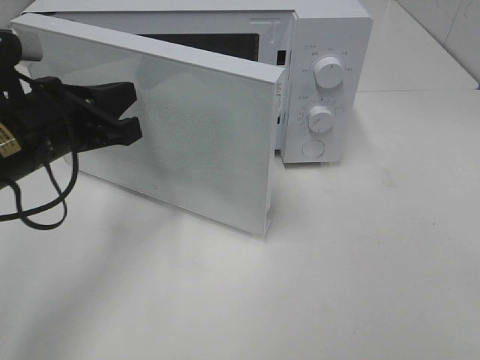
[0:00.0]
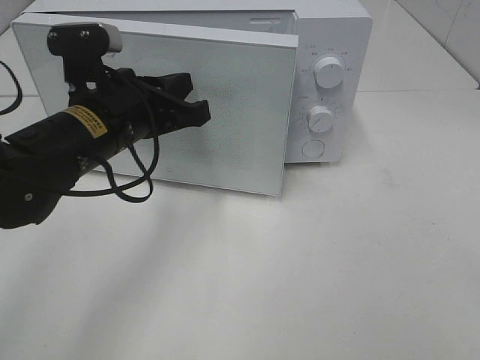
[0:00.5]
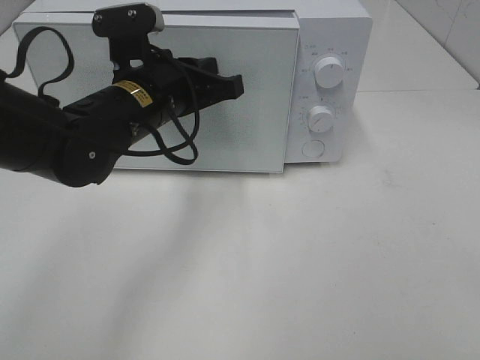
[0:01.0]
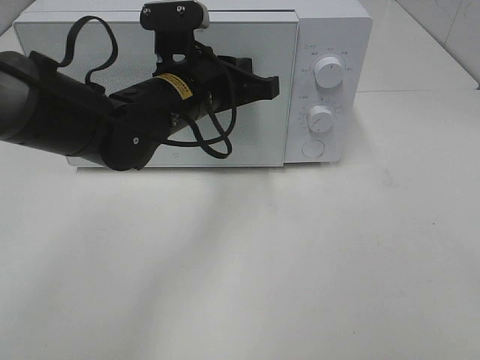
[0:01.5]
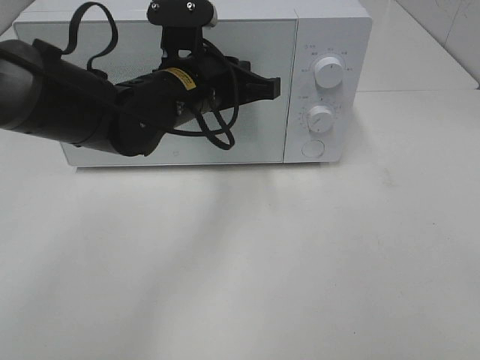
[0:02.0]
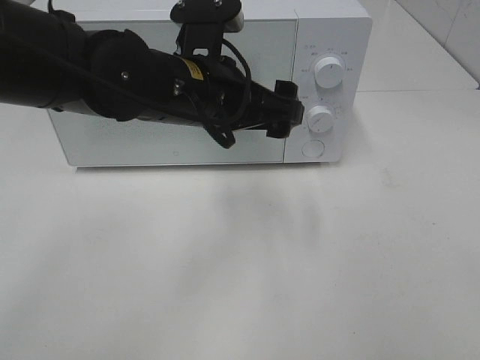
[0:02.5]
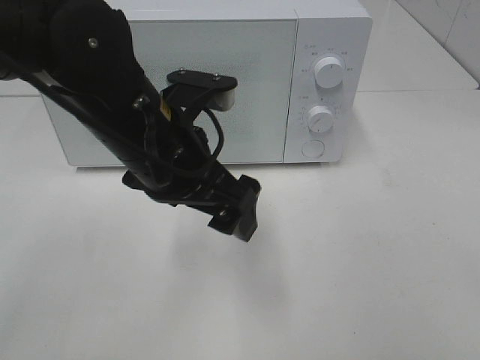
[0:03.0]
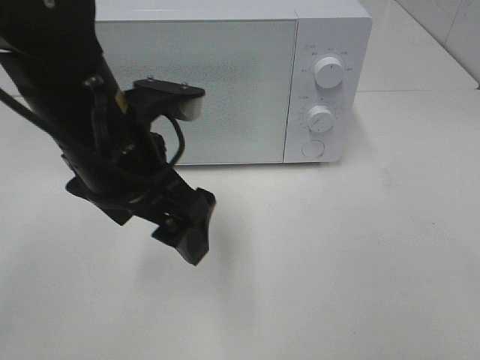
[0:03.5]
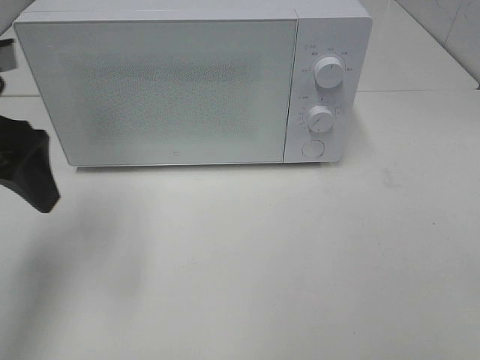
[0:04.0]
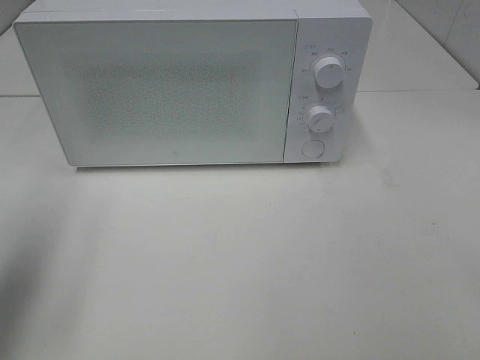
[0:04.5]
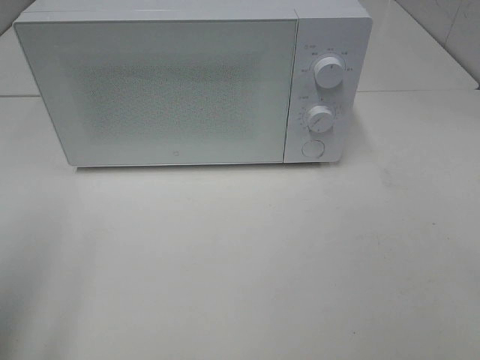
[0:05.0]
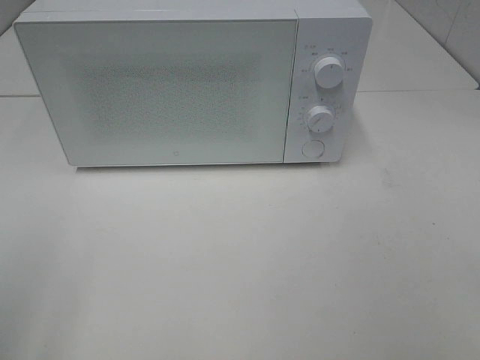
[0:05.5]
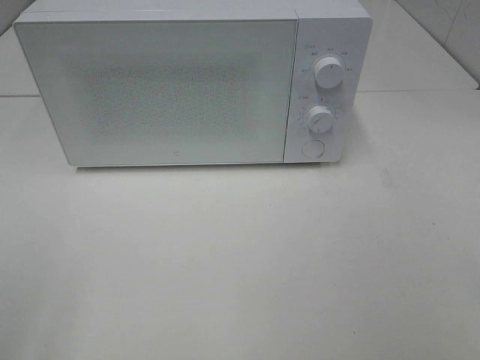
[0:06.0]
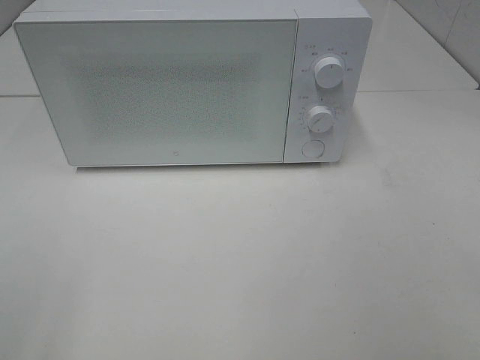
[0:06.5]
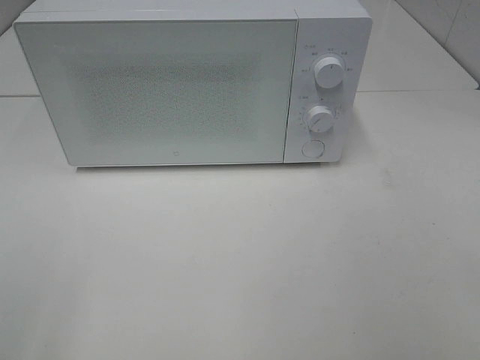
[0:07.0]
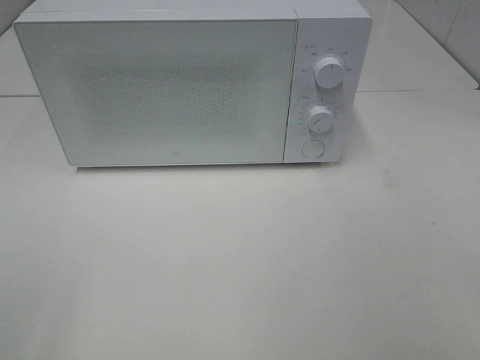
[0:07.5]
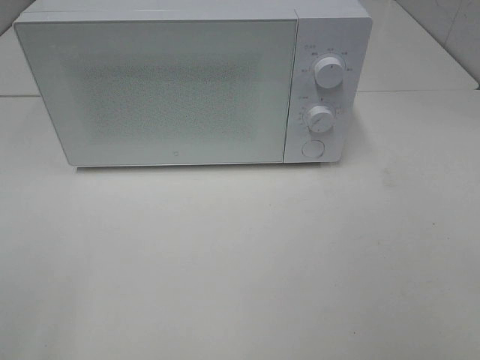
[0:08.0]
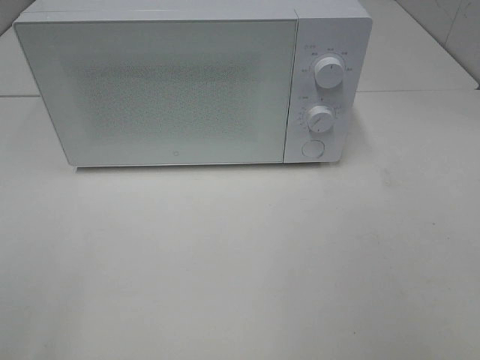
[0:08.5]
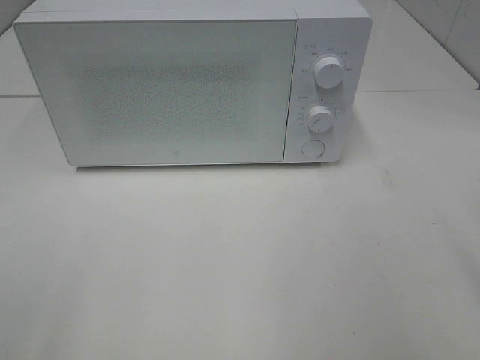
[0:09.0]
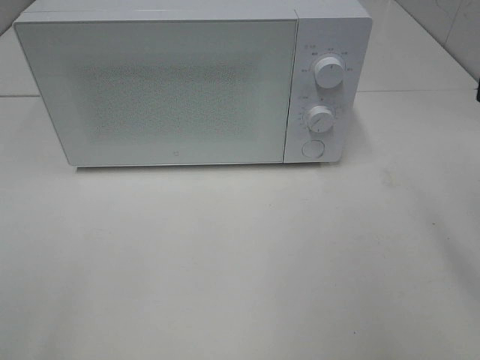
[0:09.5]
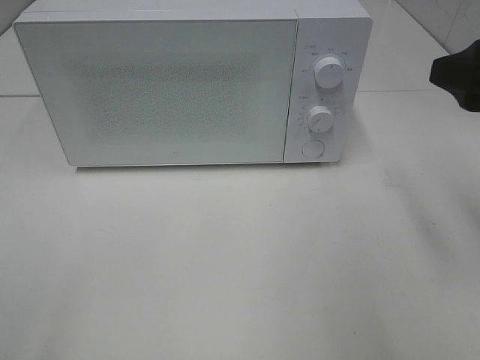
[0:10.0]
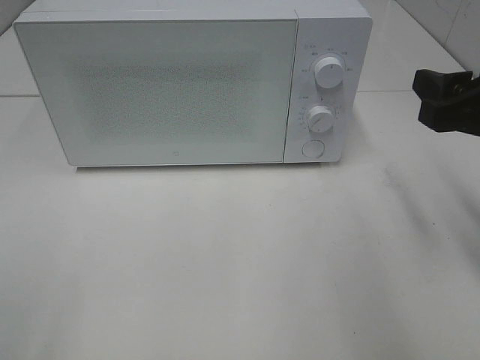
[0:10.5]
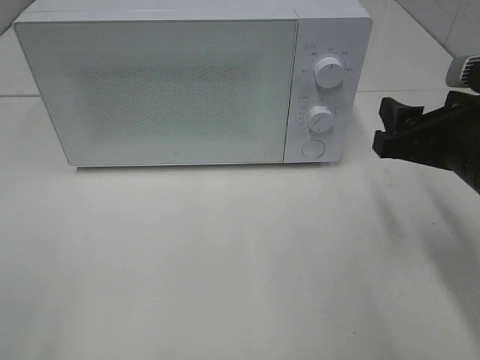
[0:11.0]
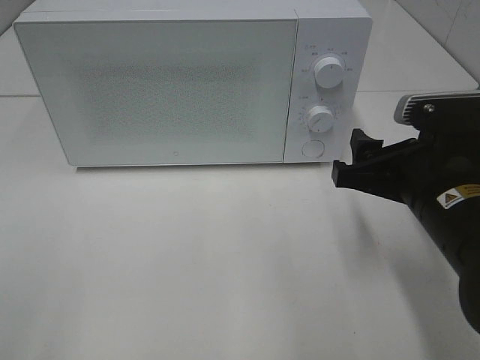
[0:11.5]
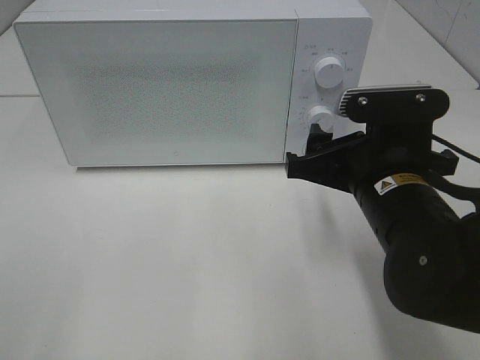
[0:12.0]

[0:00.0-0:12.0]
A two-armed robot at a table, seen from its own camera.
Task of the whole recording: Heat the burger.
Step, 0:00.0 to 0:02.0: Left hand: close the microwave door.
0:00.0 to 0:02.0: The left gripper heads to the right and forward, covering approximately 15 cm.
0:02.0 to 0:04.0: The left gripper travels to the left and backward by some 20 cm, and opens its fingers.
0:04.0 to 0:06.0: The left gripper goes some 25 cm backward.
0:08.0 to 0:10.0: The right gripper travels forward by about 20 cm.
0:10.0 to 0:12.0: The right gripper moves downward and to the left, roughly 15 cm.

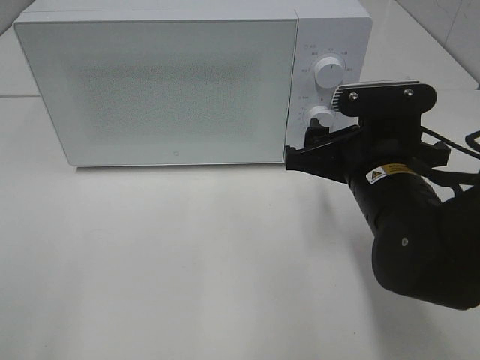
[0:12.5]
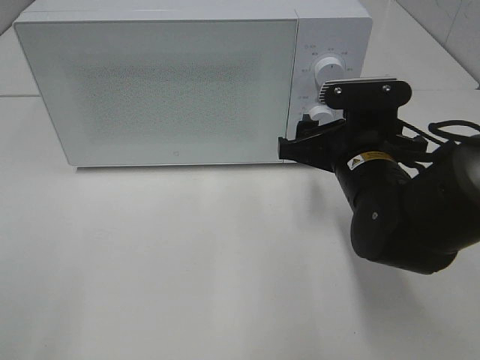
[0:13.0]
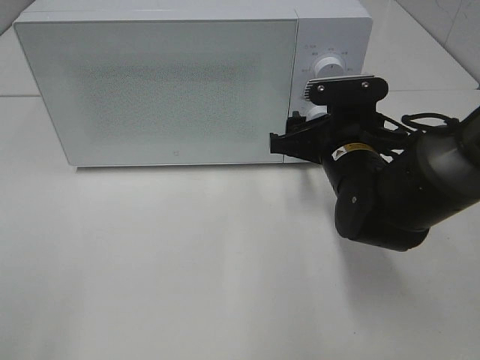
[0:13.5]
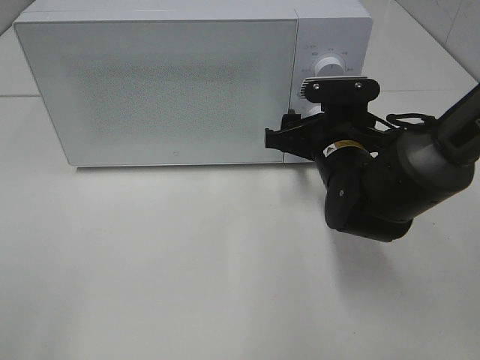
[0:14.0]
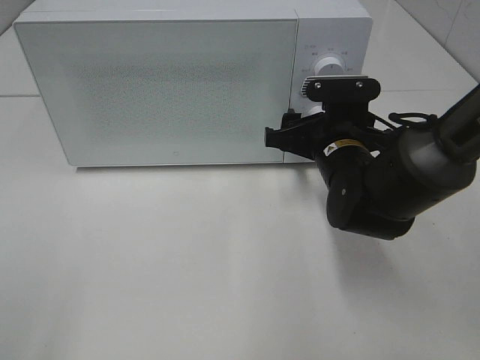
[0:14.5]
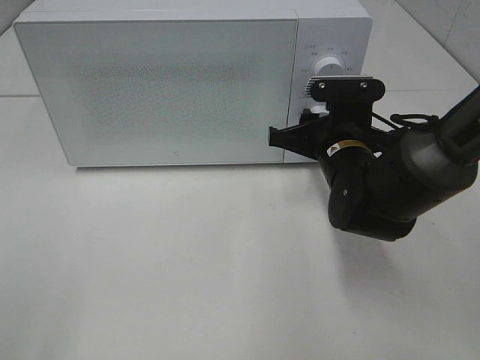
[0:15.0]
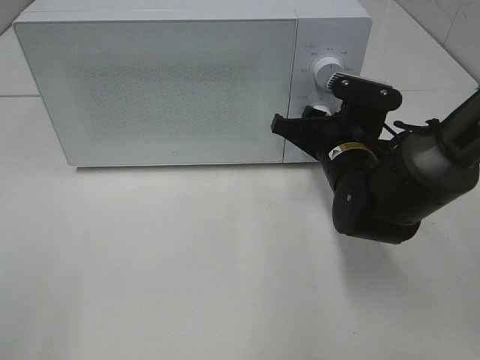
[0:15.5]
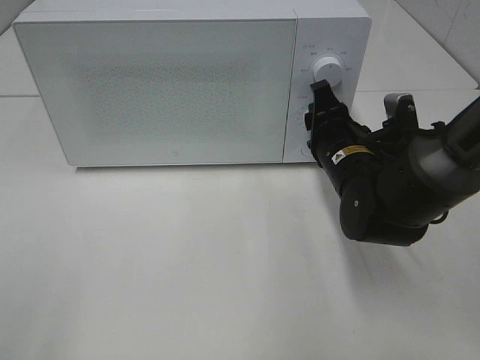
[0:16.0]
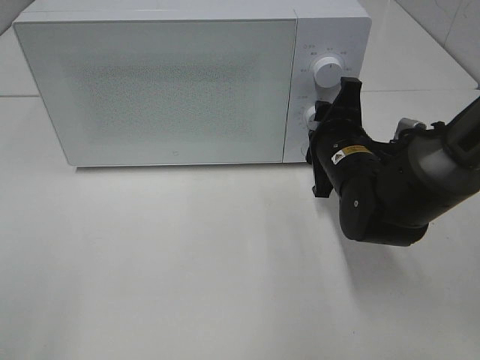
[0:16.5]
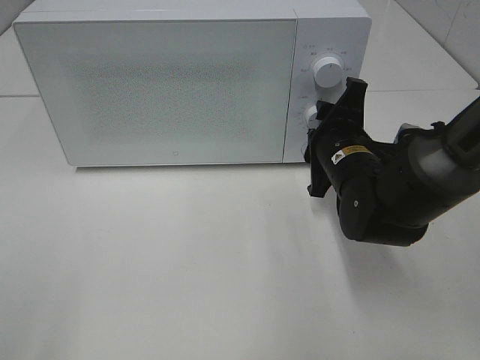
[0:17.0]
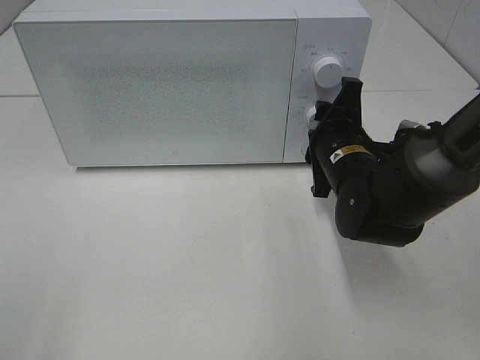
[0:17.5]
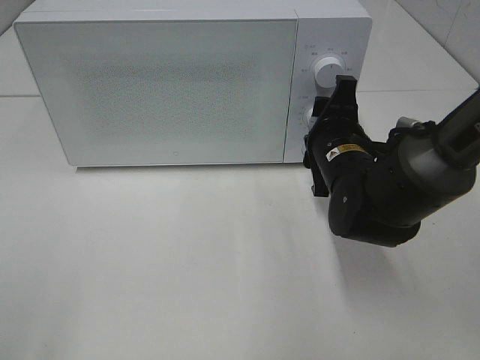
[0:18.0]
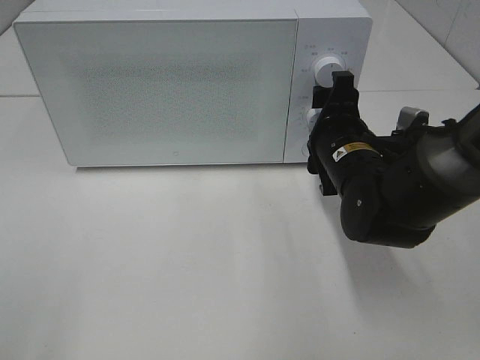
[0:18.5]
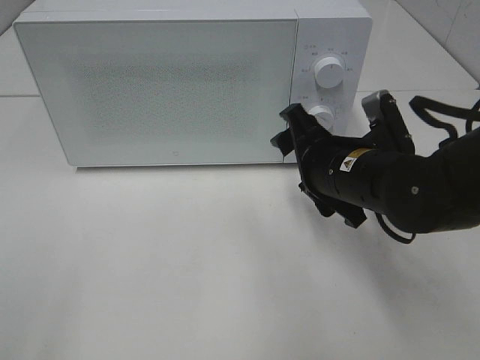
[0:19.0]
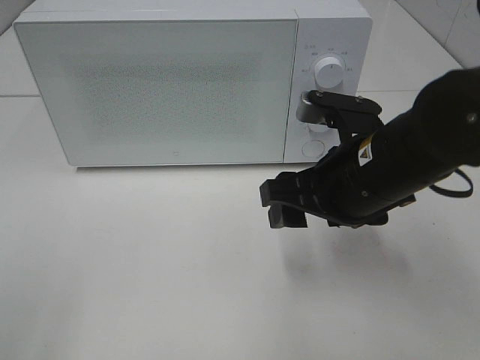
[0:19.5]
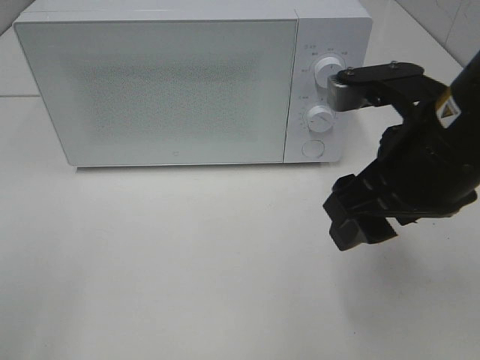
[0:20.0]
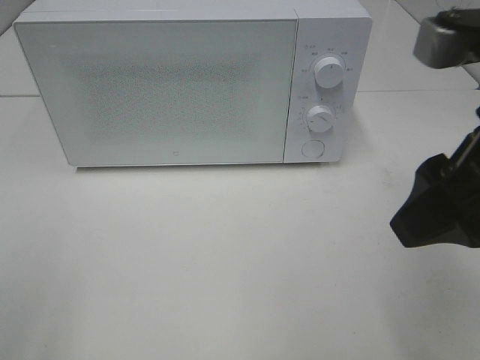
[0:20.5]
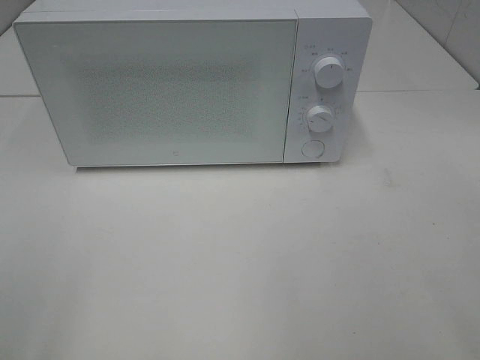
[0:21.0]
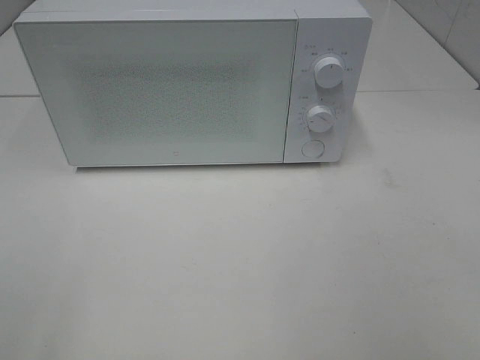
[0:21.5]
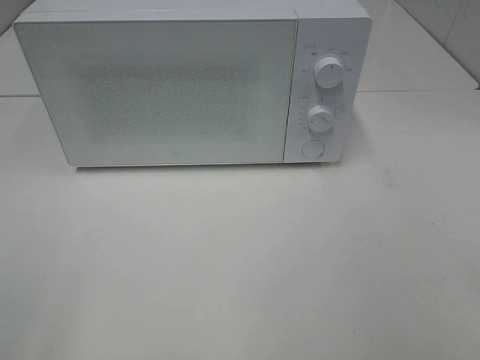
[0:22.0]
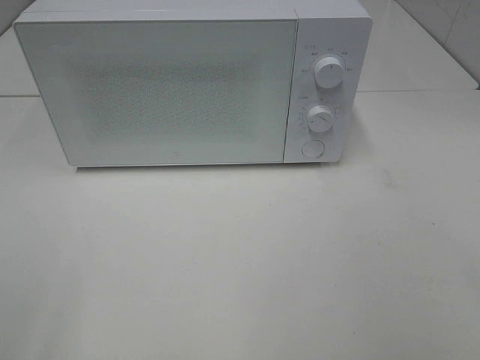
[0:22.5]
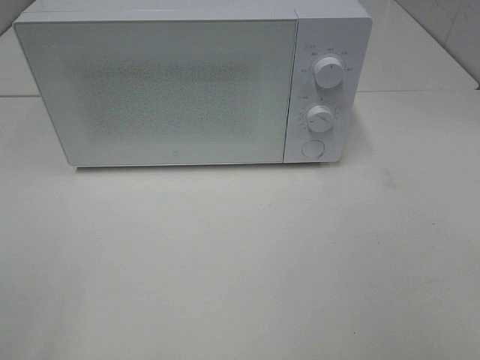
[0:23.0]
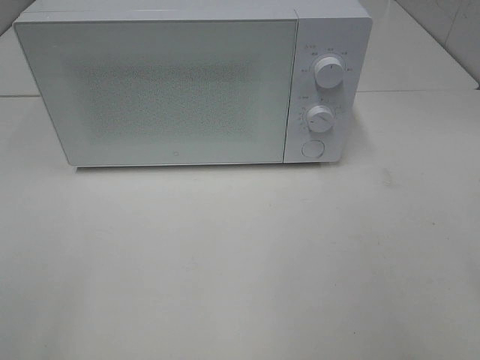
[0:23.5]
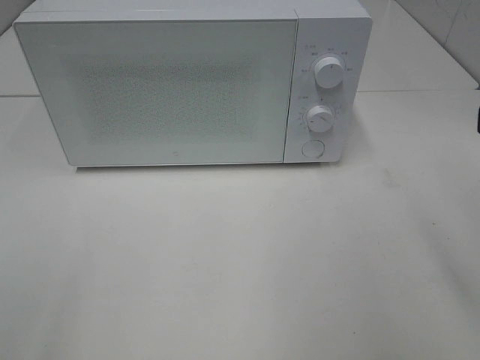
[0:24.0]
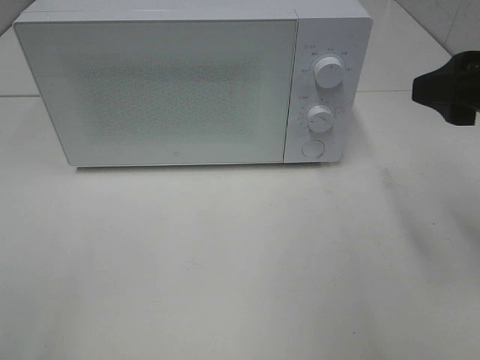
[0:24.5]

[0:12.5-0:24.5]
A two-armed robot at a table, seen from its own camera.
Task of the whole recording: Heat the burger.
Step, 0:12.5 to 0:18.0: Right hand: twist timer button.
0:12.5 to 0:14.5: The right gripper goes about 10 cm forward.
0:16.5 to 0:18.5: The grippers stay close to where they were, moving slightly.
0:18.5 to 0:20.5: The right gripper heads upward and backward, covering about 25 cm.
0:20.5 to 0:22.5: The right gripper moves backward and to the right, approximately 20 cm.
0:22.5 to 0:24.5: The right gripper is displaced forward by approximately 20 cm.

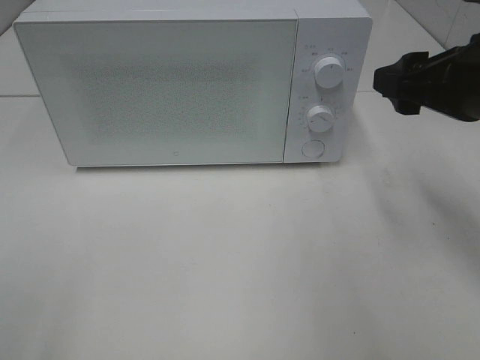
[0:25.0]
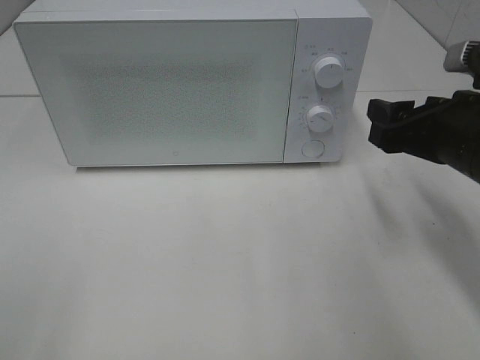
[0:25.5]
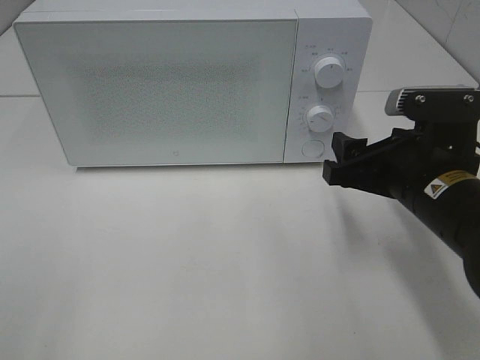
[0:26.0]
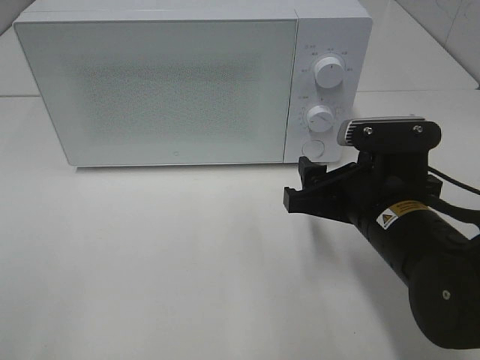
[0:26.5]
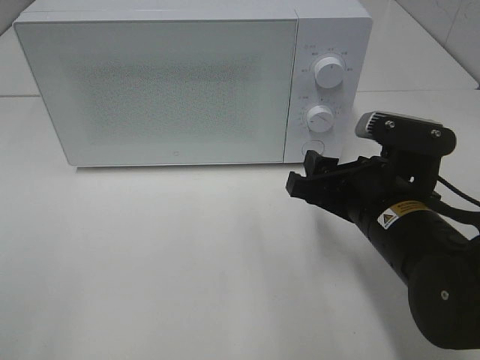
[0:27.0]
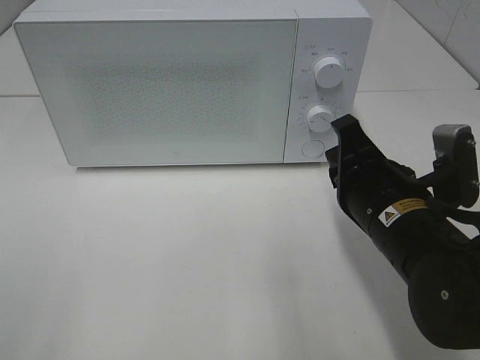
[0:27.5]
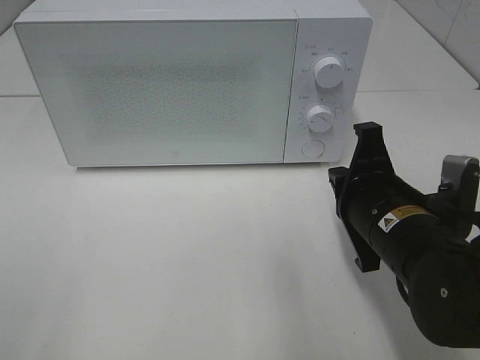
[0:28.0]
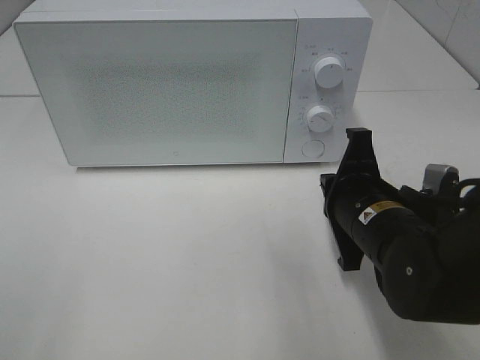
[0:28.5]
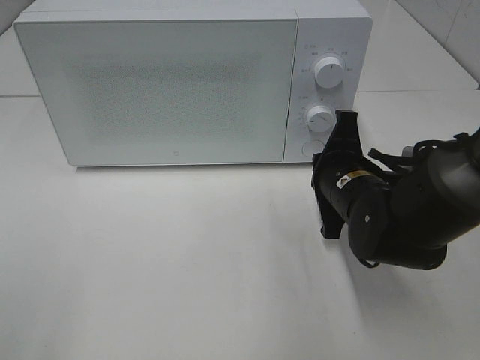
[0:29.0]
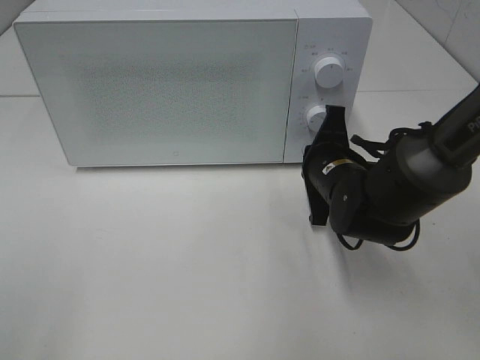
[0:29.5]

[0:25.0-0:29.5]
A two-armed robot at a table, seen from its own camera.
Task of the whole recording: Heat the burger.
0:25.0 to 0:27.0: The right gripper goes about 15 cm downward and to the left.
0:27.0 to 0:29.5: The right gripper shifts approximately 10 cm forward and downward, and closes up.
